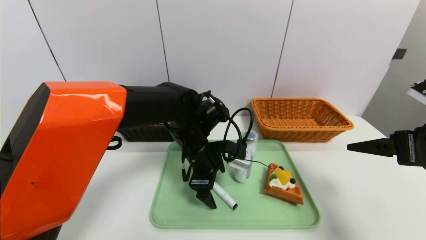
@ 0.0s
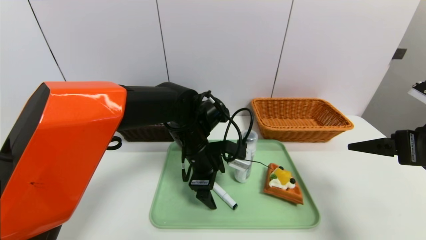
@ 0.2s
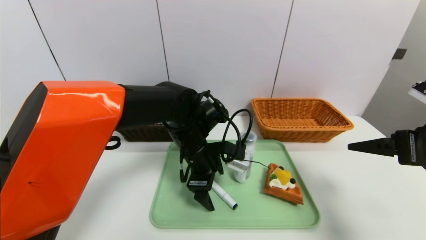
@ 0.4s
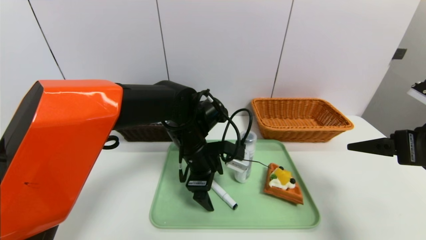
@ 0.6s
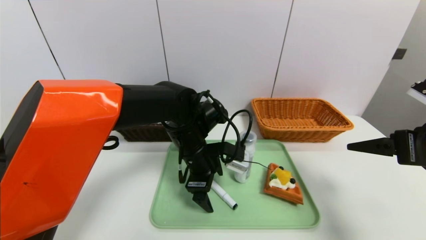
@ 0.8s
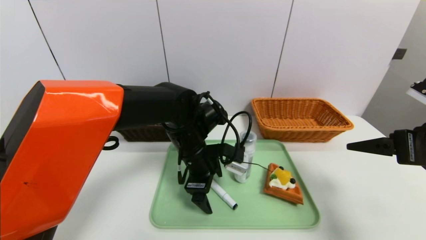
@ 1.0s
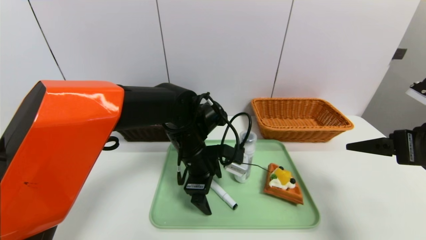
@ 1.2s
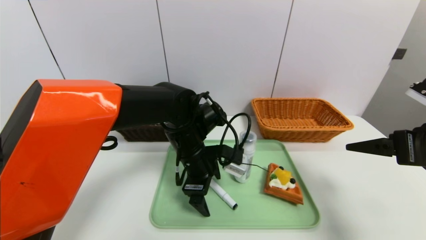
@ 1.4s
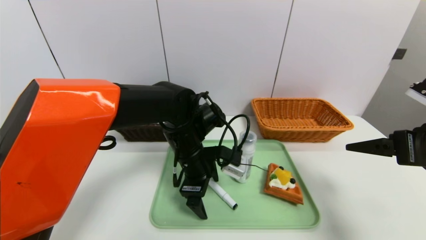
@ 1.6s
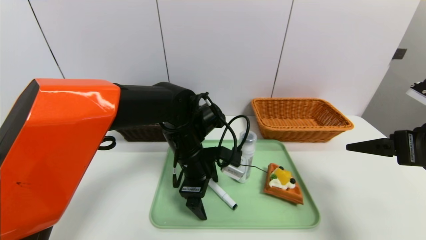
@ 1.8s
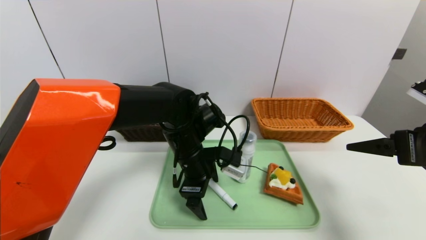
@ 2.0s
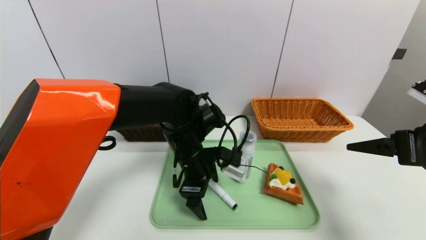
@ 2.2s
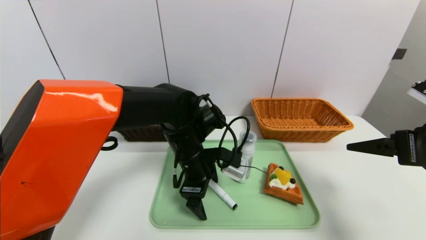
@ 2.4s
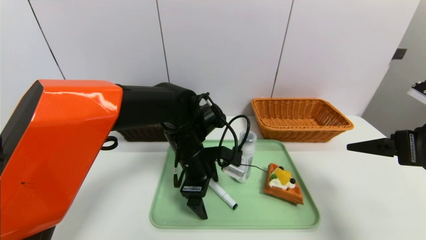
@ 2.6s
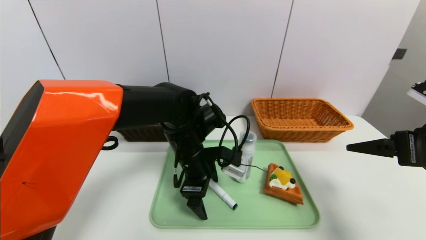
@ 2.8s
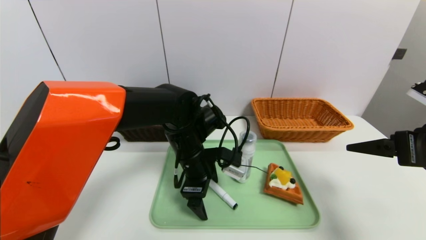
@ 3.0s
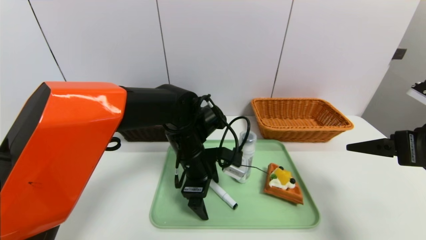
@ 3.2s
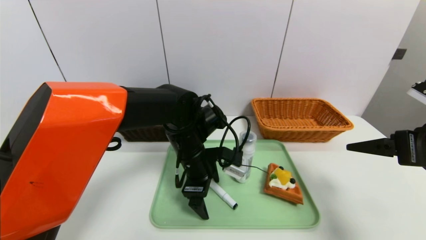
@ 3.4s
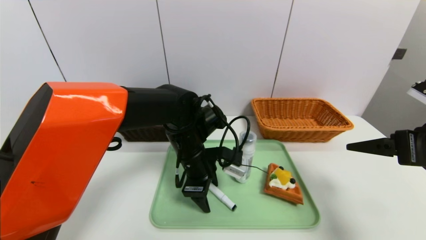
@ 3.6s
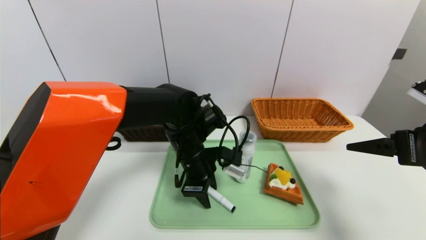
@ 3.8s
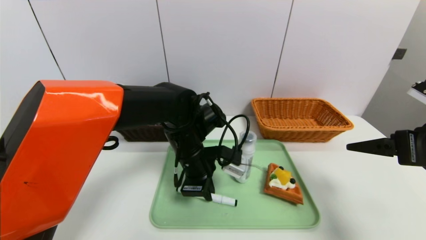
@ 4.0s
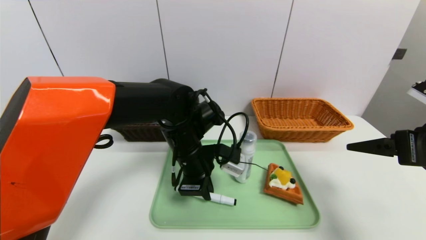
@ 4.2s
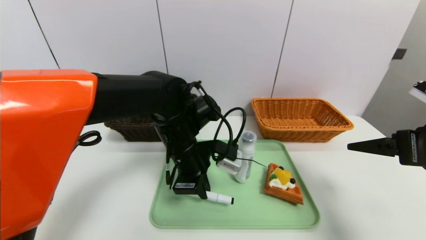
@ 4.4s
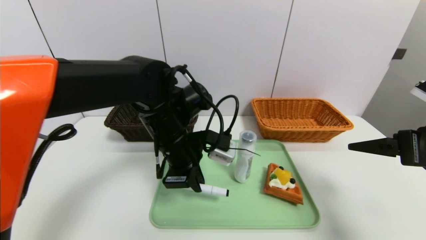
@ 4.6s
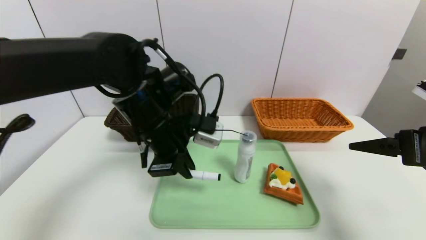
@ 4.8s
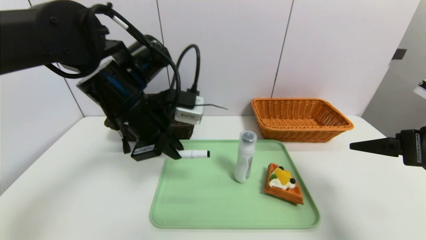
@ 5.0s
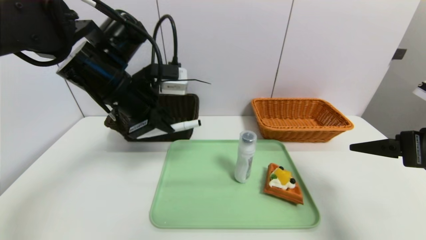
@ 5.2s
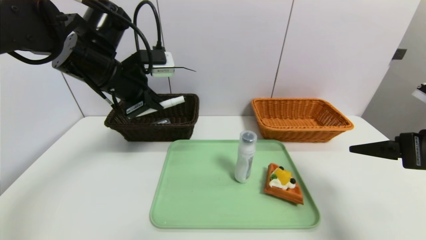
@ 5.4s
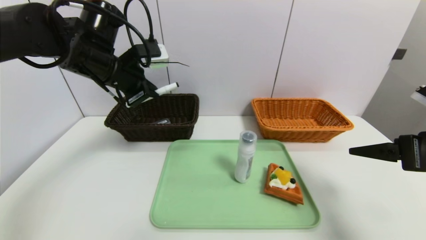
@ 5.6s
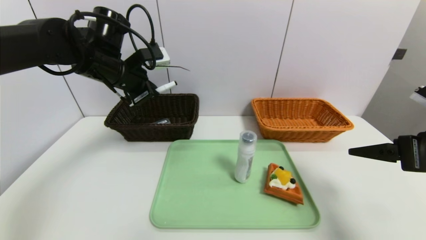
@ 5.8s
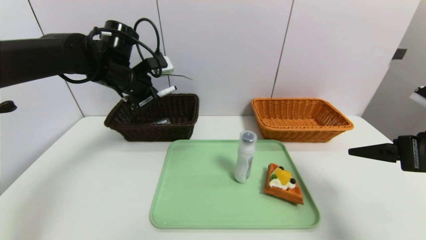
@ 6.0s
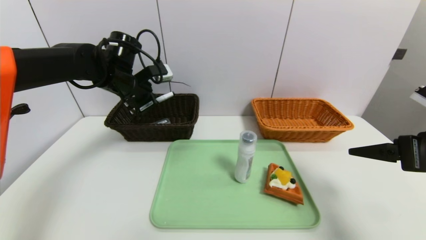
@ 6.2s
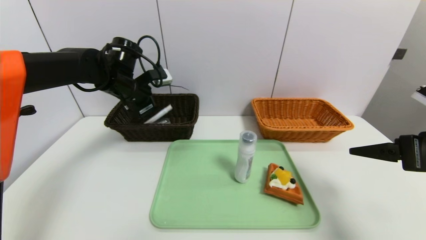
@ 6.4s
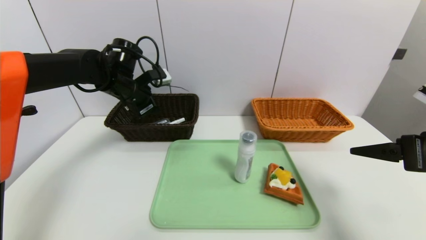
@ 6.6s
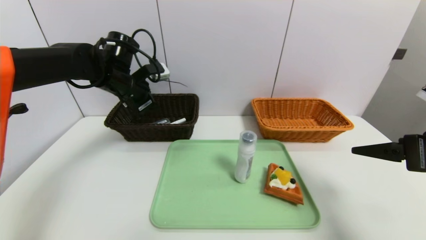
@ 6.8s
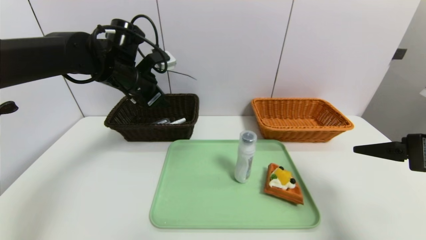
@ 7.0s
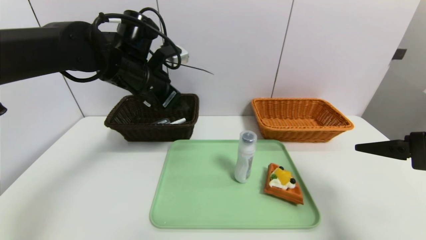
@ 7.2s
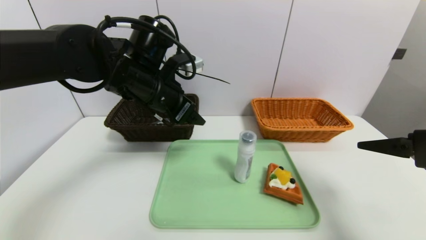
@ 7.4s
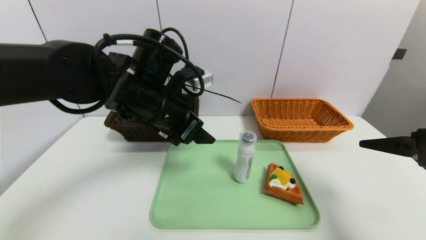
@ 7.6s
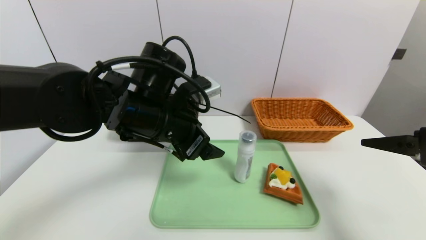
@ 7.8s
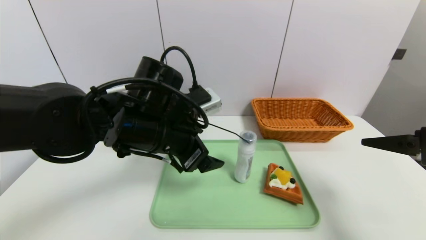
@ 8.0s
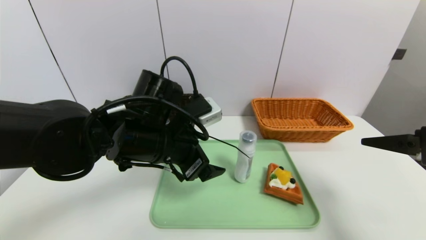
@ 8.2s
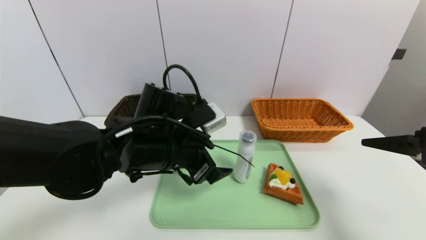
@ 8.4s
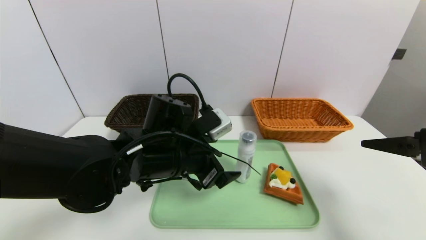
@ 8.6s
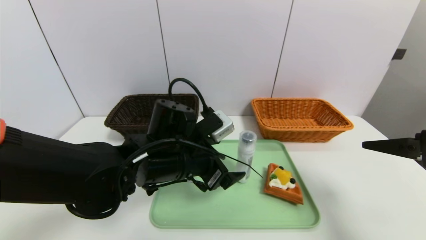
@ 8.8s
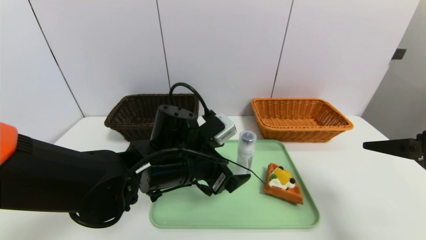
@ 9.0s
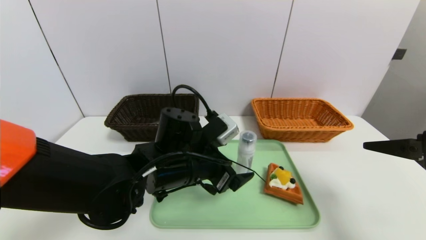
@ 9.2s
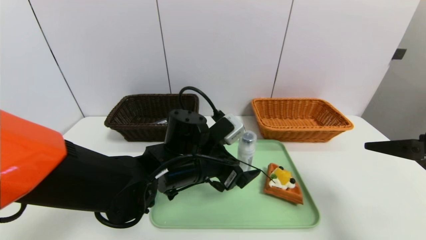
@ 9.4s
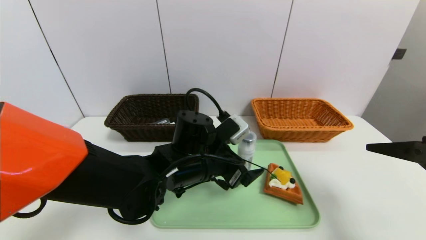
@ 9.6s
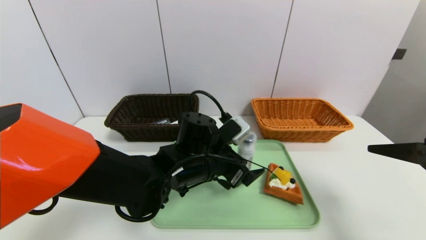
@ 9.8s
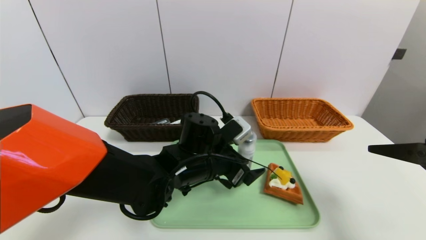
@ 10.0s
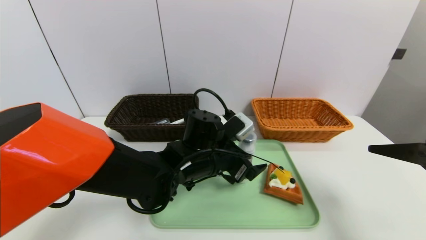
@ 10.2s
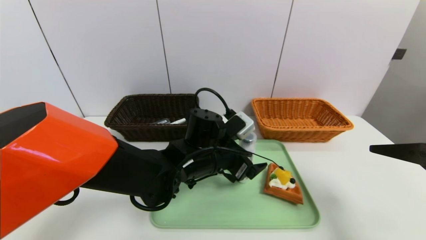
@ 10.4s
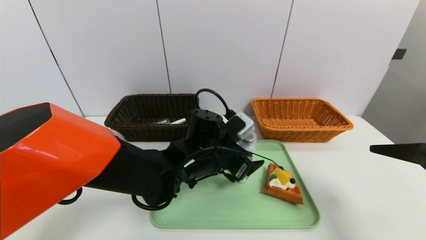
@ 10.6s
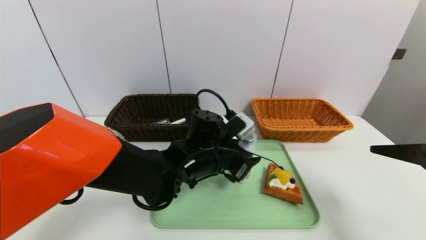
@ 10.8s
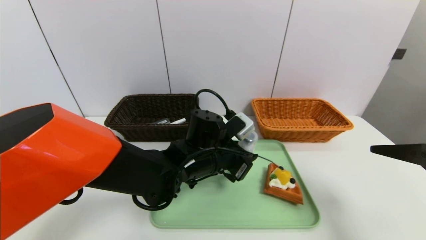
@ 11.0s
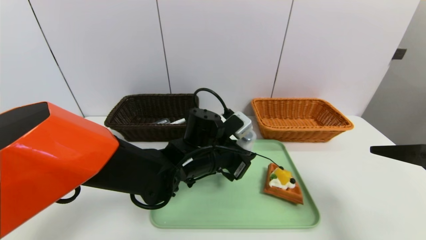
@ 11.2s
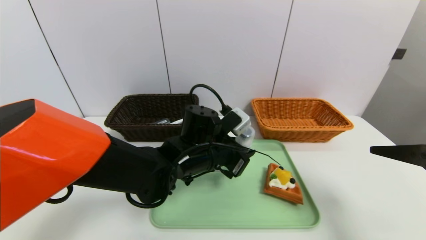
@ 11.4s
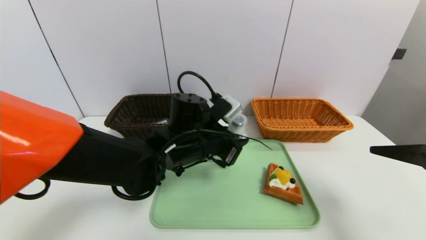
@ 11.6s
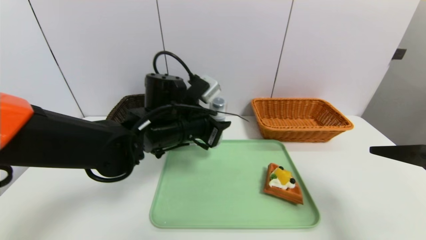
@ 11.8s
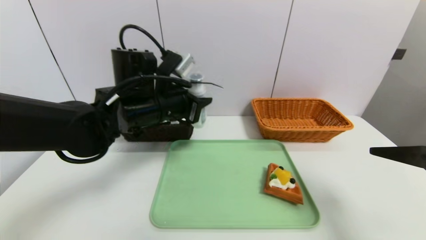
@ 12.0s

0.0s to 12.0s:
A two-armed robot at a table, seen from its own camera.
Task of the whole recording: place the food in the right basket with the right gripper, and place the non food items in the left basket with the left gripper.
Step, 0.0s to 7.0s: Grasp the pen container and put it in the left basket.
0.0s to 1.6s: There are only small adjustments of the grippers.
1.6s to 3.0s: Neither gripper changes place.
3.0s to 4.4s: The left gripper closes.
4.4s to 6.0s: The left gripper goes roughly 20 cm to the left, forward and upward.
6.0s to 7.6s: The left gripper travels backward and to the right by about 15 cm, and opens its fingers.
7.6s to 9.0s: The left gripper moves downward, approximately 10 cm.
9.0s to 10.4s: The left gripper ends up some 5 cm from where it was.
10.4s to 12.0s: The left gripper goes some 15 cm to the left and upward, and closes.

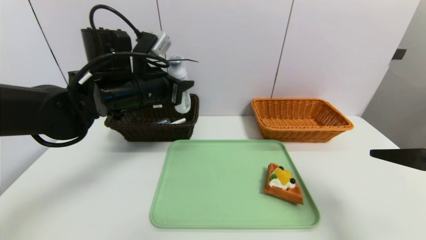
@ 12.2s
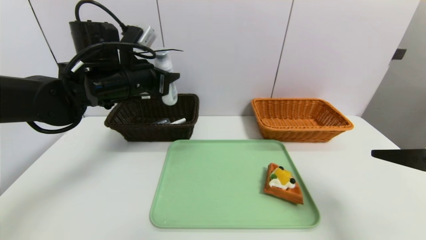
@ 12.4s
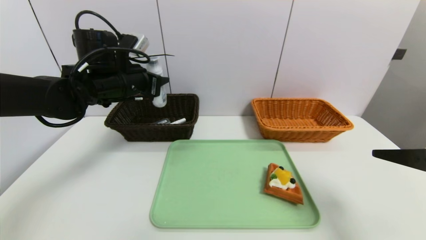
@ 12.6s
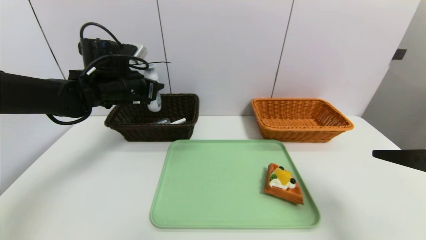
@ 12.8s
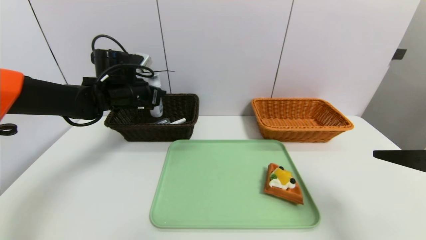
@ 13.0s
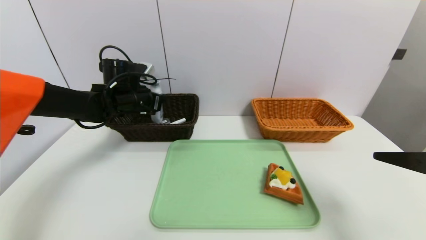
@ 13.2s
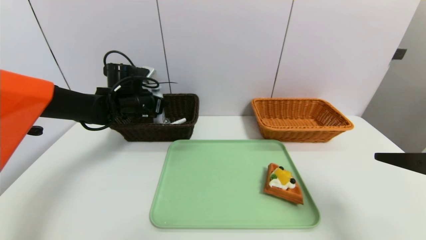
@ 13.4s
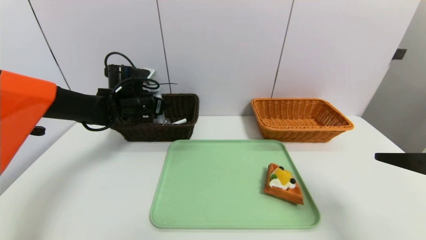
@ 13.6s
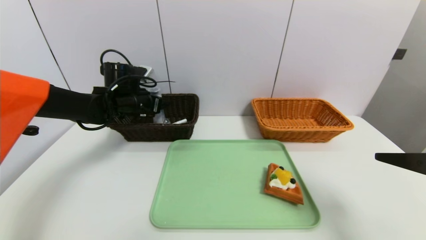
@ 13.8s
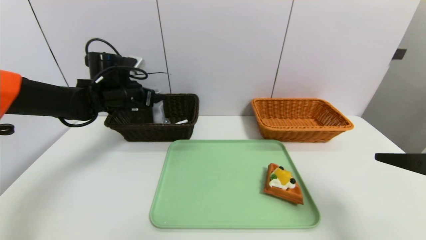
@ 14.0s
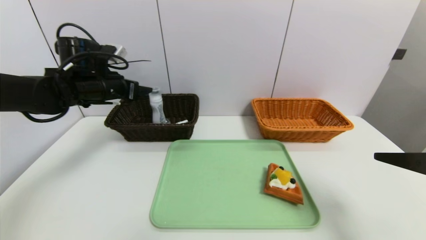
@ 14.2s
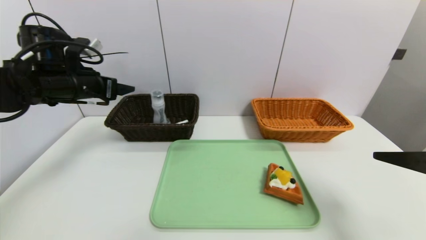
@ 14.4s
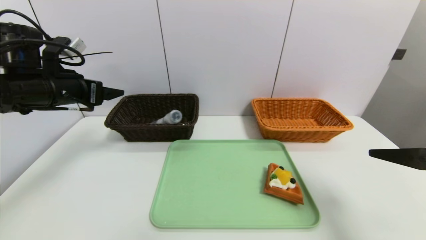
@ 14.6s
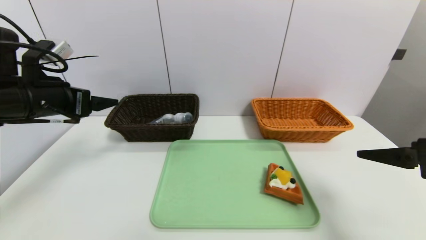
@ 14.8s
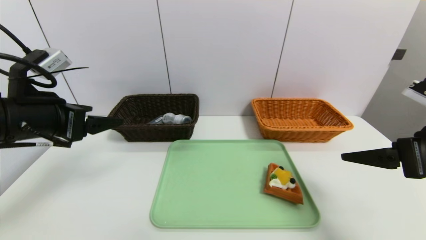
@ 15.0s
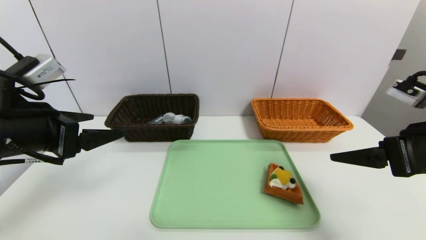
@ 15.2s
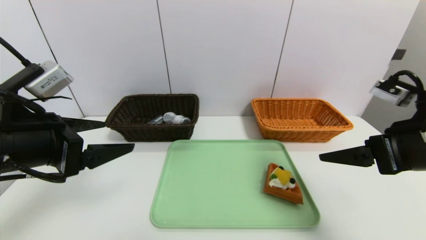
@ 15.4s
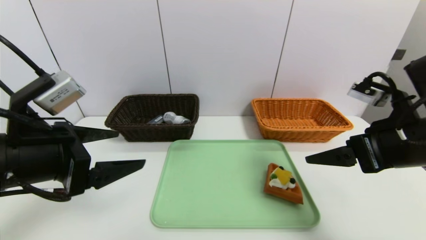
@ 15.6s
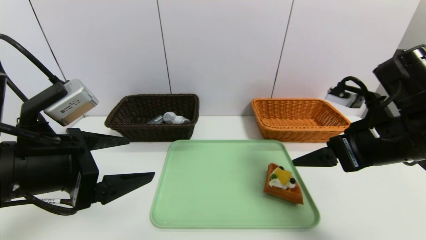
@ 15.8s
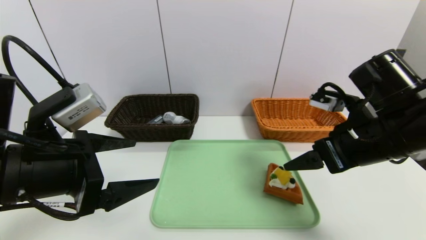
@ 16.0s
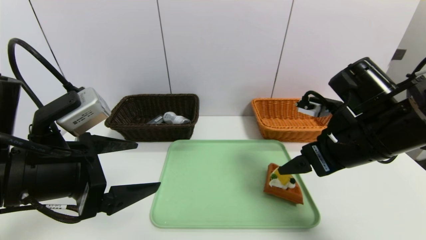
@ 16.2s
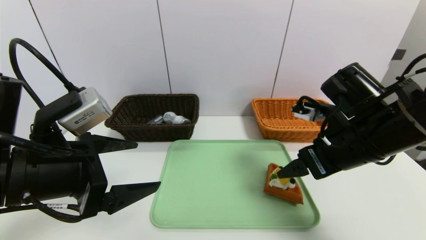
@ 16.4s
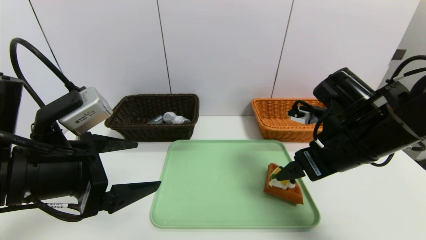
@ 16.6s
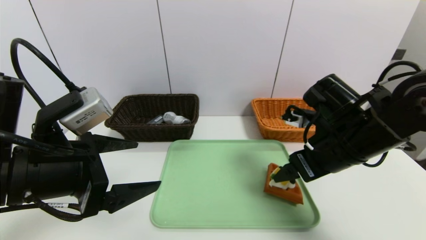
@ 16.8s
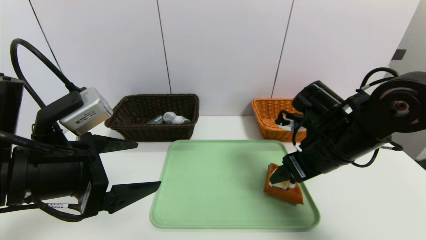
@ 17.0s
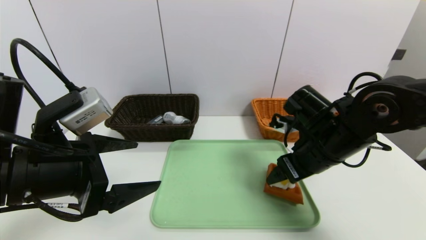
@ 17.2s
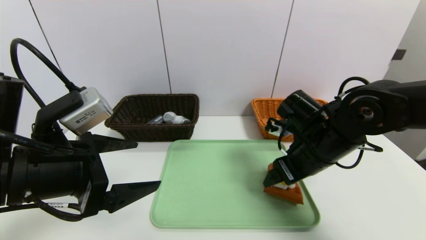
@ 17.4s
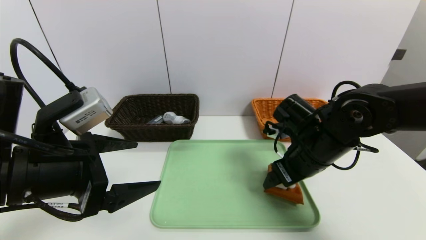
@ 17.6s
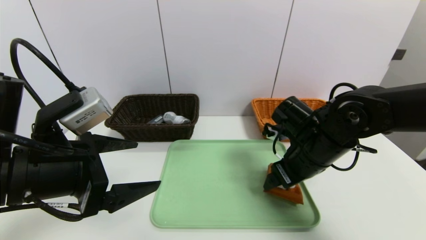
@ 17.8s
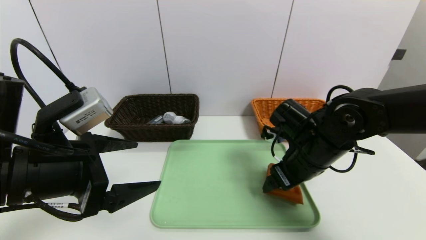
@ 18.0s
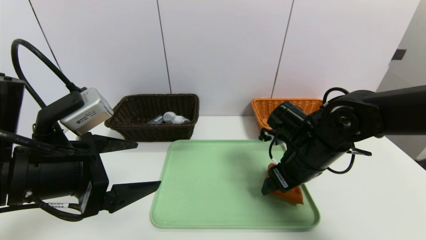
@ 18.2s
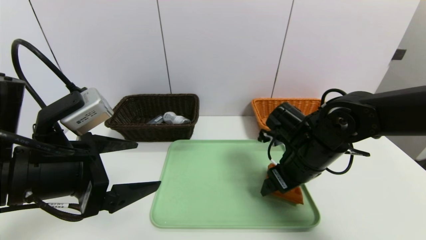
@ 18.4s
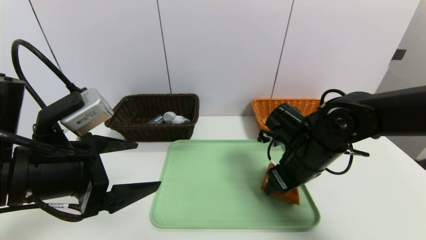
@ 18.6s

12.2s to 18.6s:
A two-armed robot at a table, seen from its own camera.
Task of the whole recording: place the food in the right basket with the right gripper, and place the non food items in the left basket with the left gripper.
Step, 12.2s to 14.2s: Grasp the cleaning agent and put it in the left basket.
12.2s to 13.8s: The left gripper shifts about 15 cm forward, downward and to the left, and opens.
13.8s to 15.4s: The right gripper goes about 10 cm forward and to the left. The left gripper goes approximately 25 cm backward.
15.4s to 17.0s: The right gripper heads to the left, forward and downward, covering approximately 15 cm.
17.0s to 18.6s: The right gripper moves some 5 cm, and closes.
